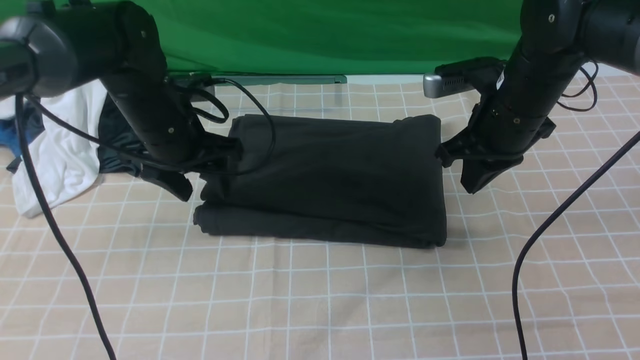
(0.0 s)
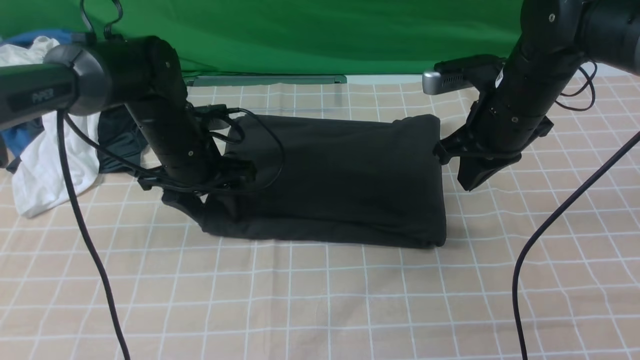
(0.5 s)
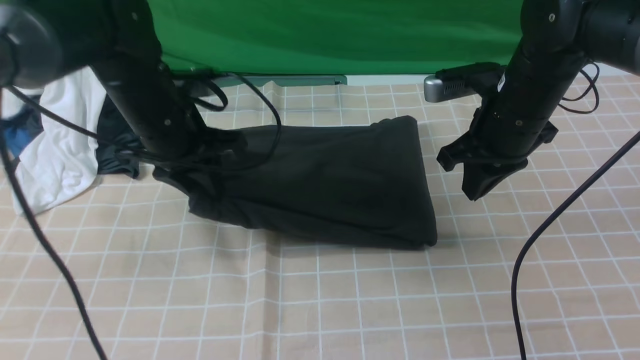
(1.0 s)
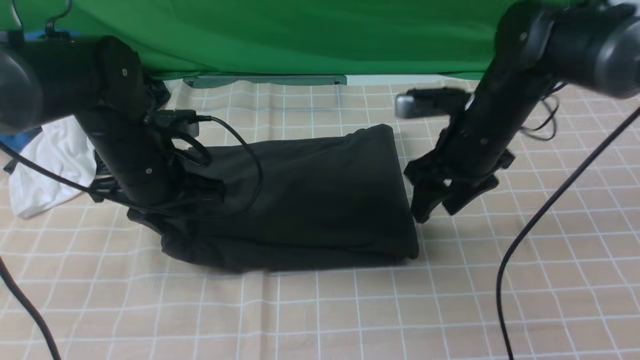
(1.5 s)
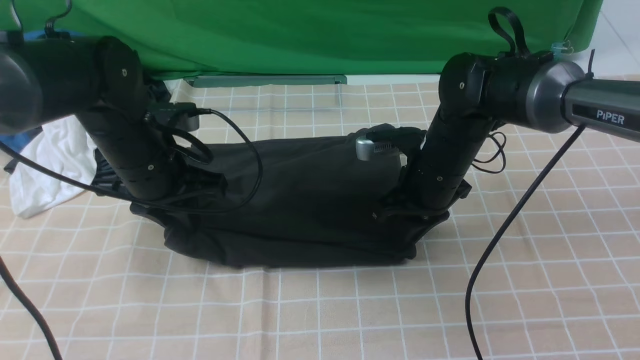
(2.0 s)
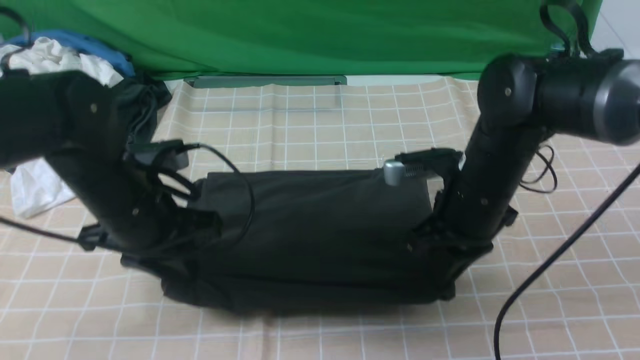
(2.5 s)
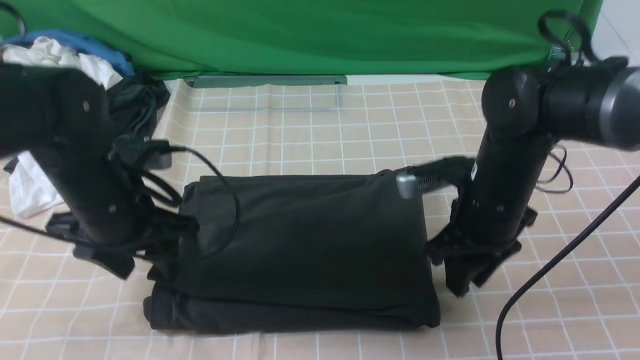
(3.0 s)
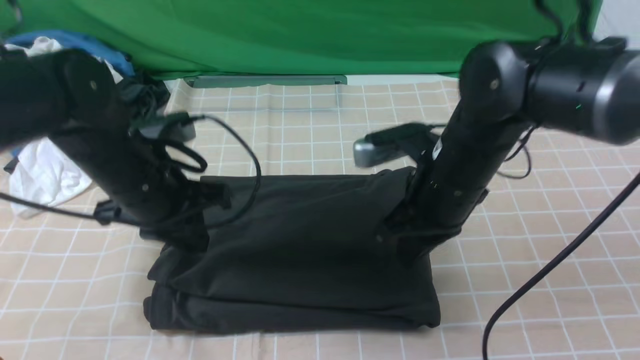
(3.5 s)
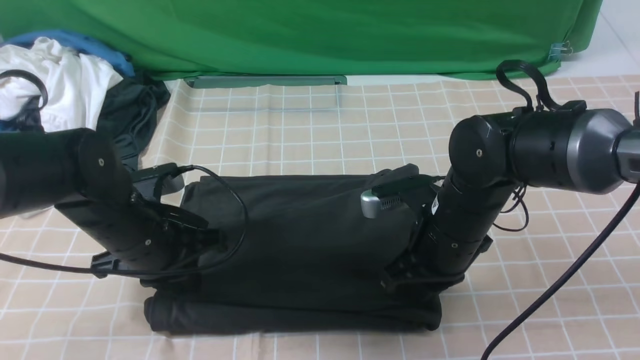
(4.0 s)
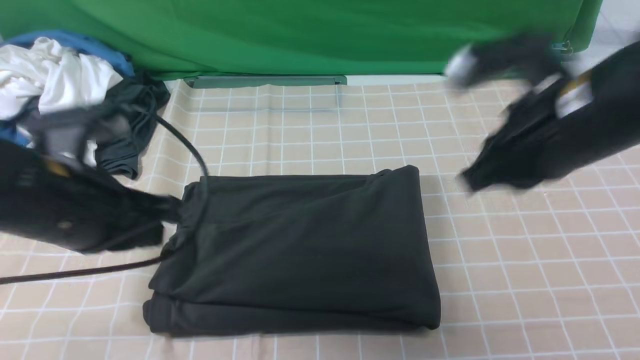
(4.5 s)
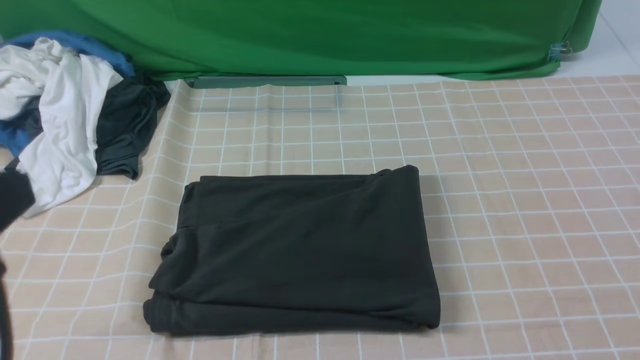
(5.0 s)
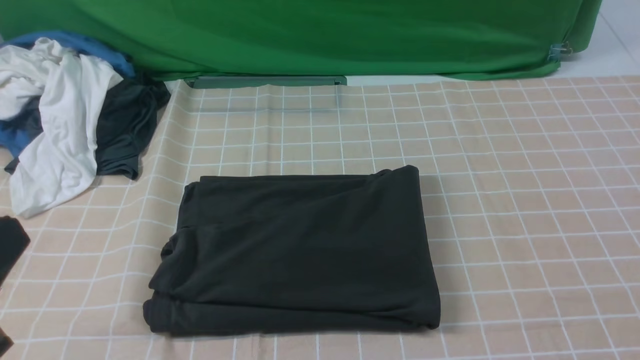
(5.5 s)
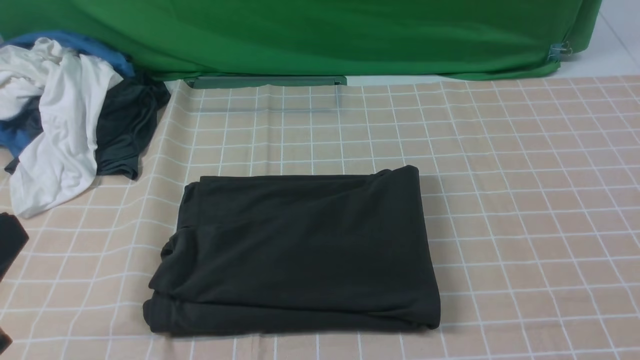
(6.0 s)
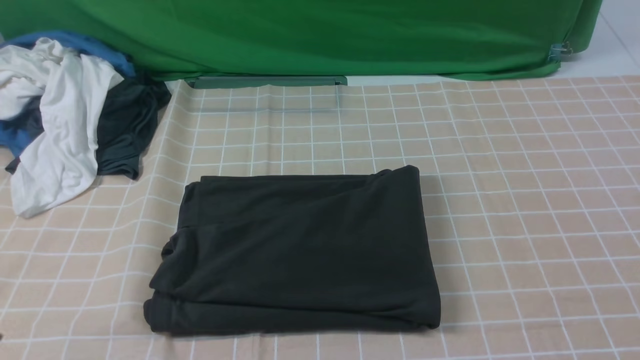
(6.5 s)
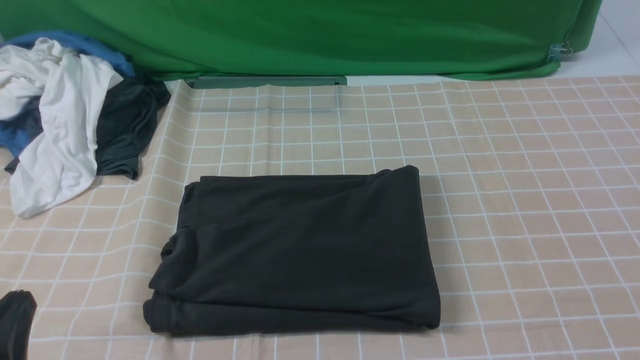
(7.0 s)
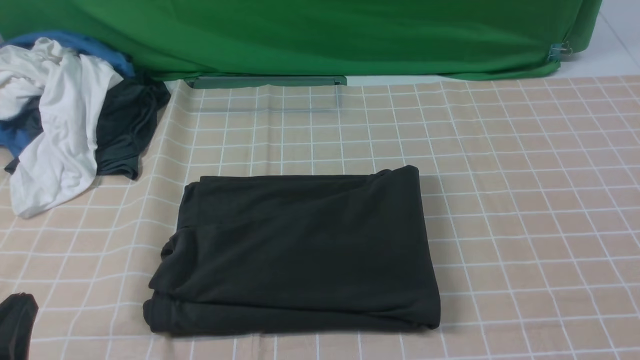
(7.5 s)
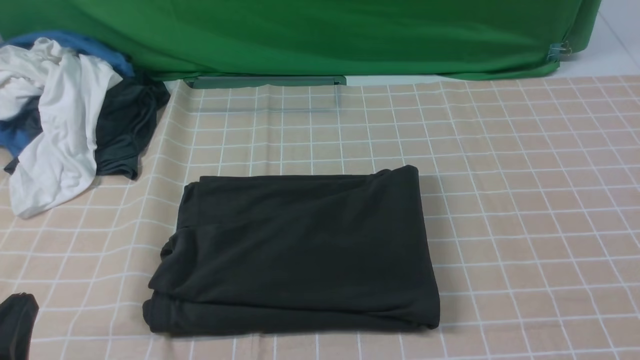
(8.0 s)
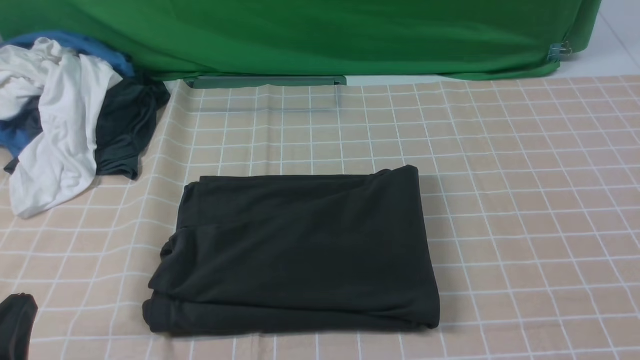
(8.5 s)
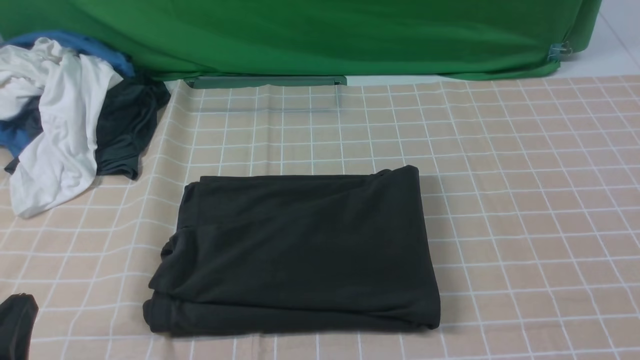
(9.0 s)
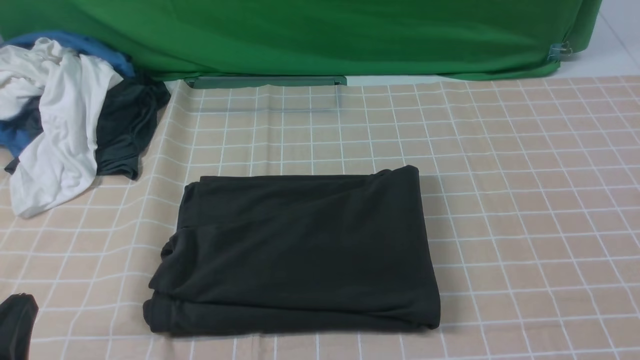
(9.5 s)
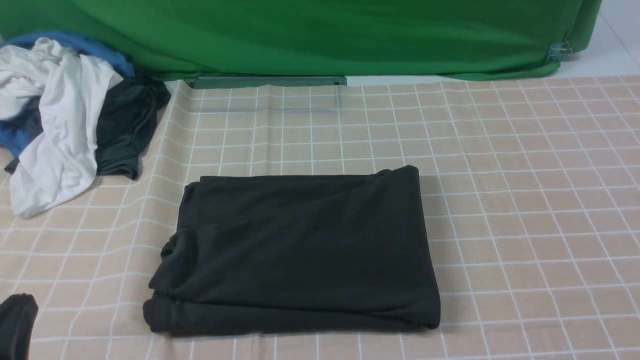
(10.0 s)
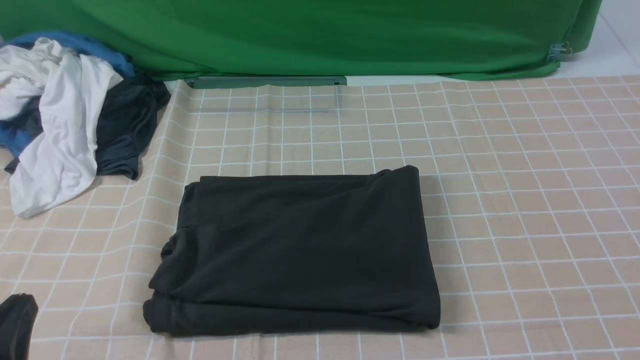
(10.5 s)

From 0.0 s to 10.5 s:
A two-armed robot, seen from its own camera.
From 0.0 s to 2.0 s: The right gripper travels downward and to the left by approximately 10 cm, and opens, while the left gripper is displaced backward by approximately 5 cm, and closes up.
From 2.0 s to 4.0 s: Both grippers move backward, about 5 cm. The left gripper opens, then closes again. Meanwhile the right gripper closes its fingers.
From 4.0 s to 6.5 s: The left gripper moves backward and upward, some 25 cm. Meanwhile the right gripper is displaced backward, upward and to the right by approximately 35 cm.
From 6.5 s to 8.5 s: The left gripper shifts about 10 cm downward.

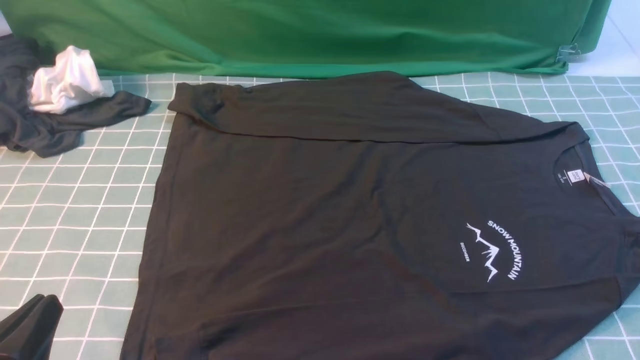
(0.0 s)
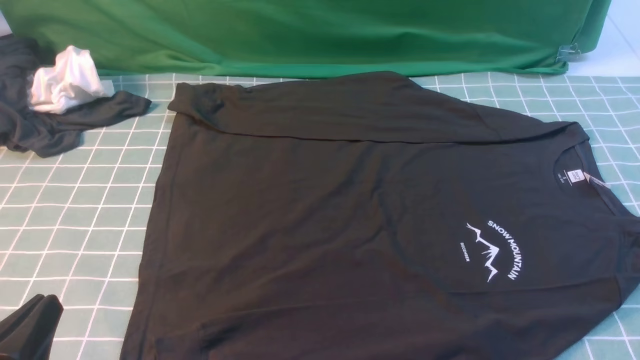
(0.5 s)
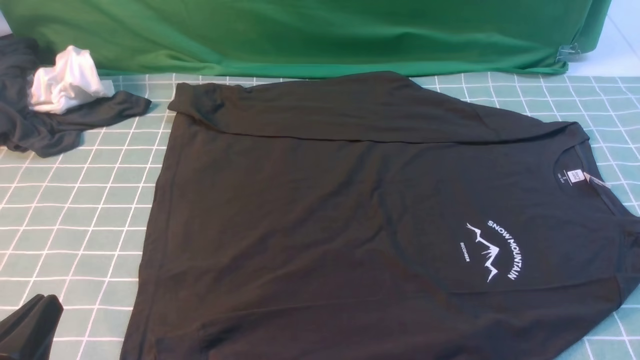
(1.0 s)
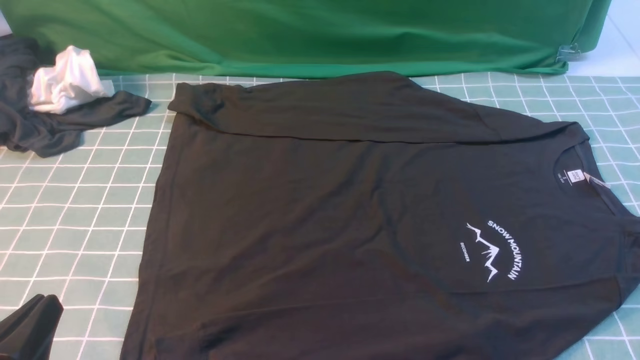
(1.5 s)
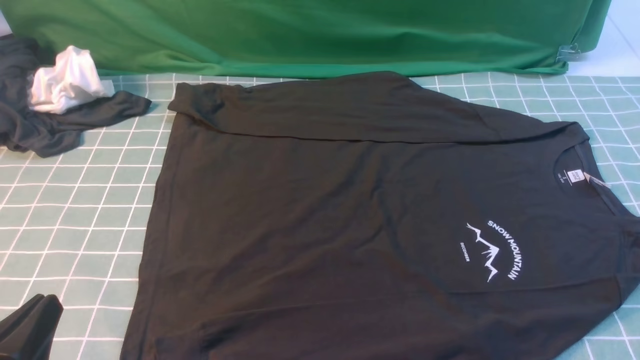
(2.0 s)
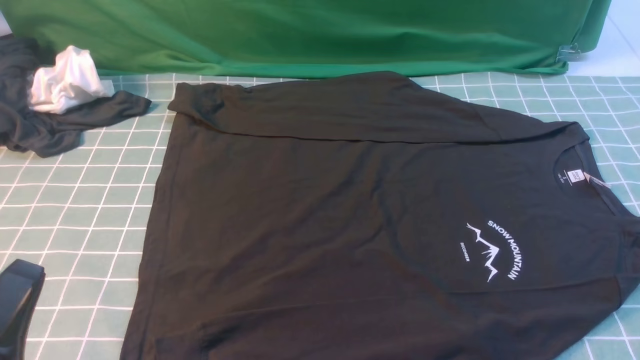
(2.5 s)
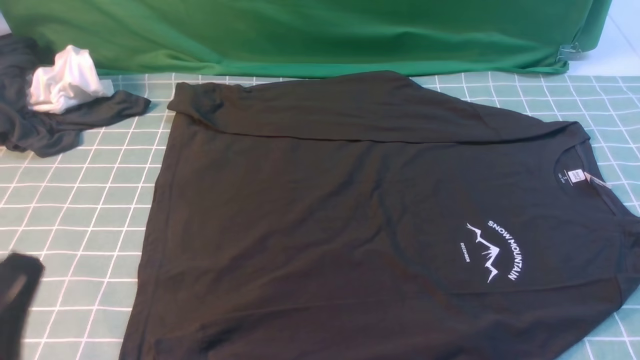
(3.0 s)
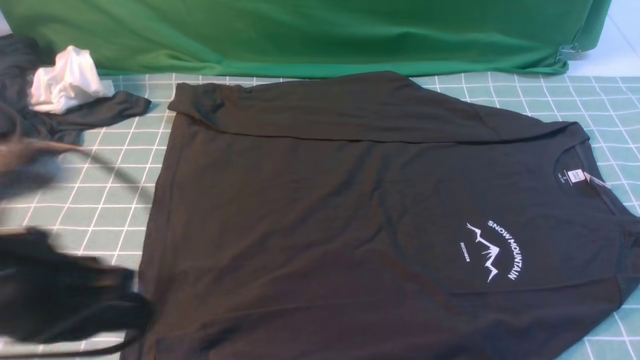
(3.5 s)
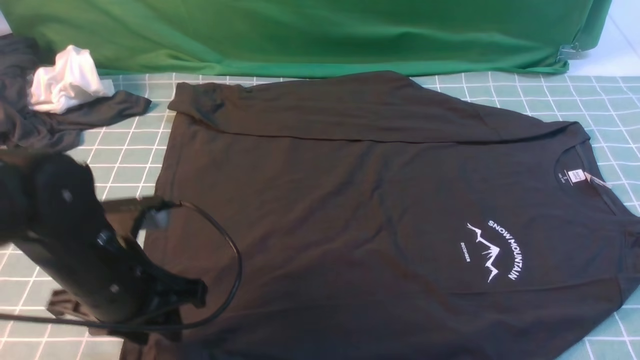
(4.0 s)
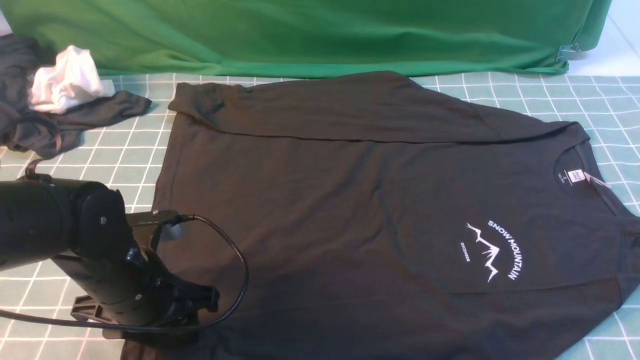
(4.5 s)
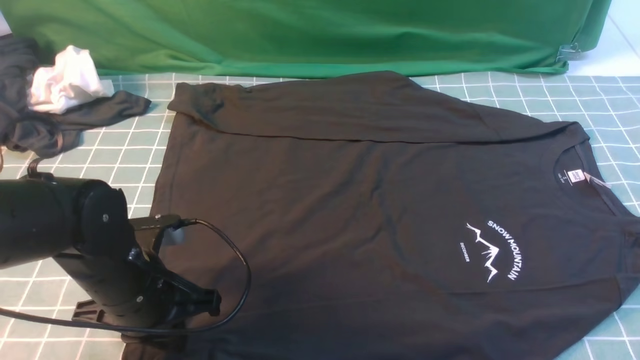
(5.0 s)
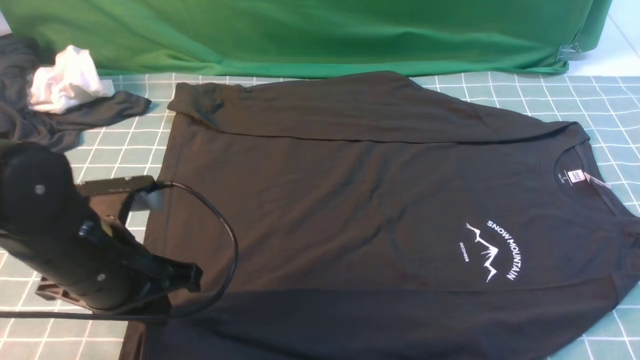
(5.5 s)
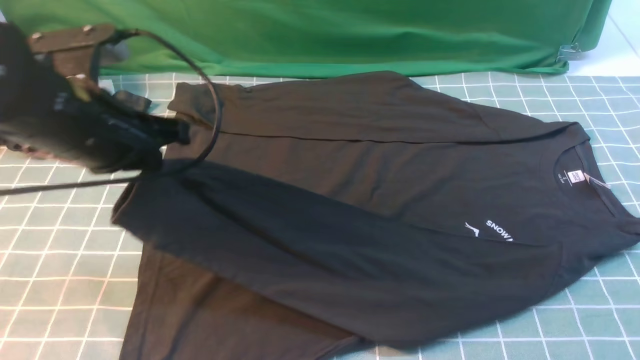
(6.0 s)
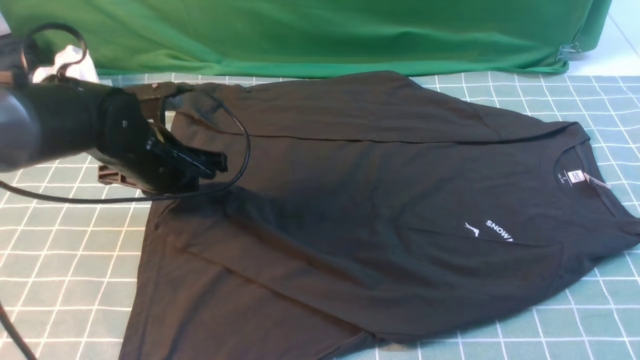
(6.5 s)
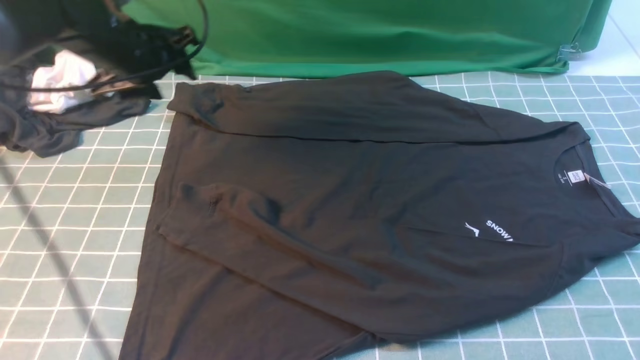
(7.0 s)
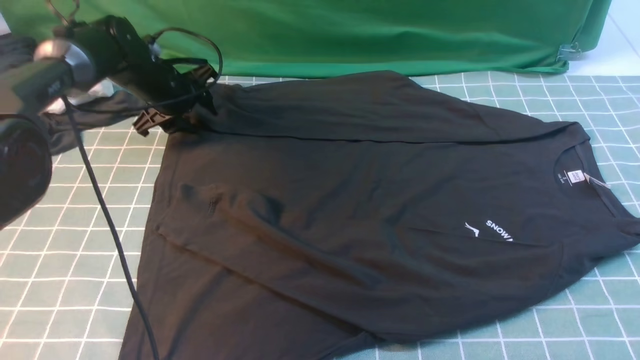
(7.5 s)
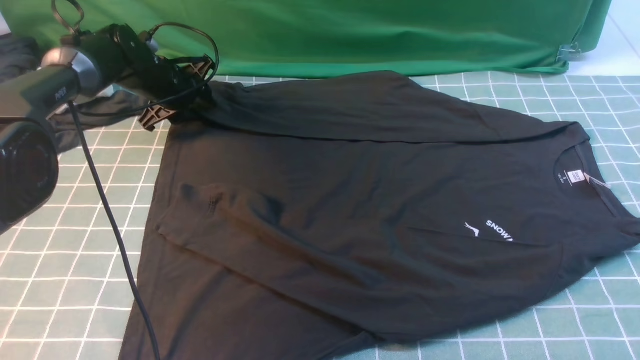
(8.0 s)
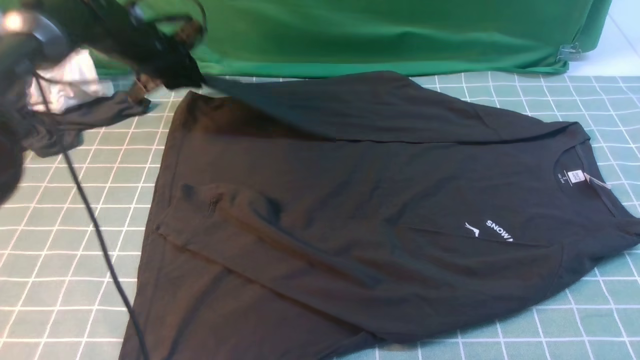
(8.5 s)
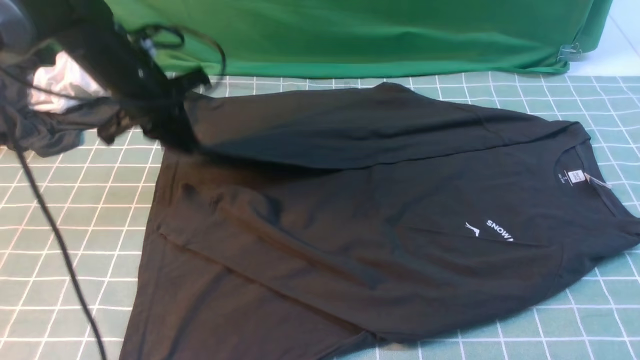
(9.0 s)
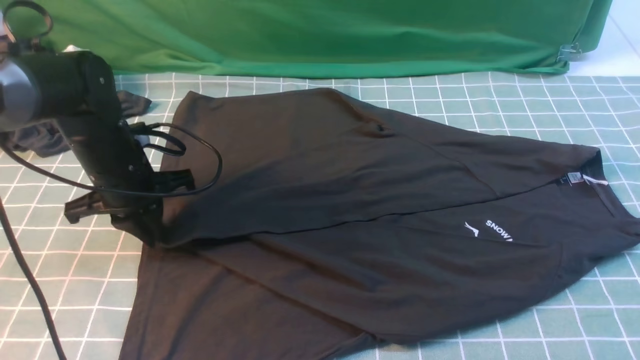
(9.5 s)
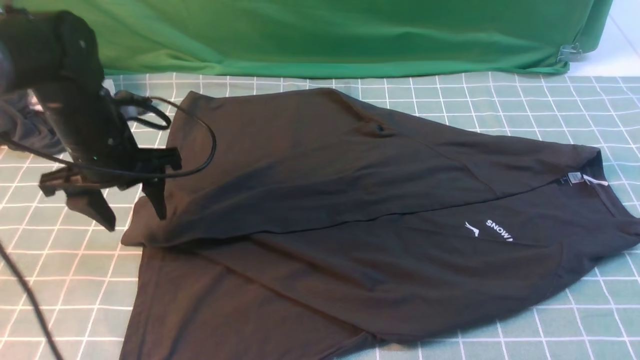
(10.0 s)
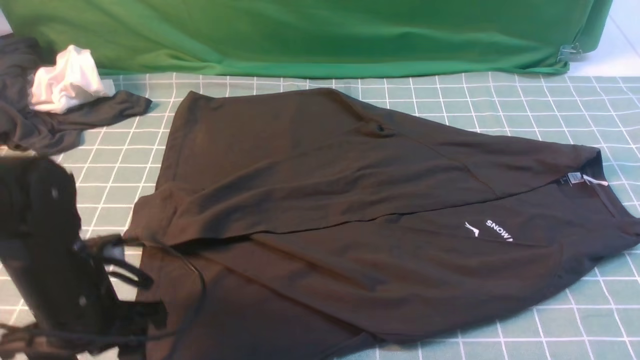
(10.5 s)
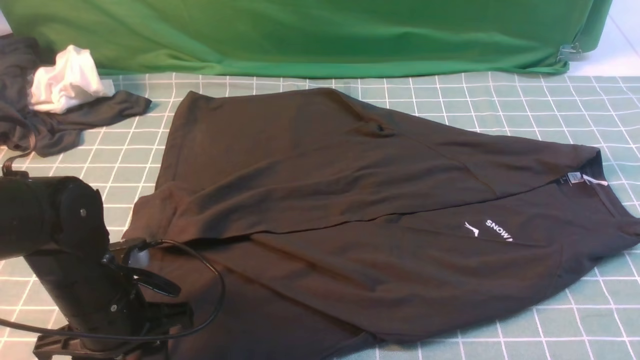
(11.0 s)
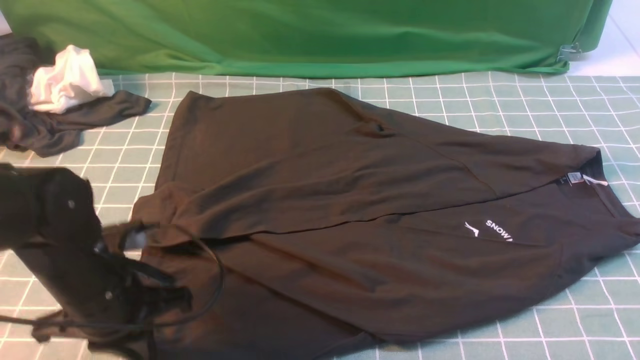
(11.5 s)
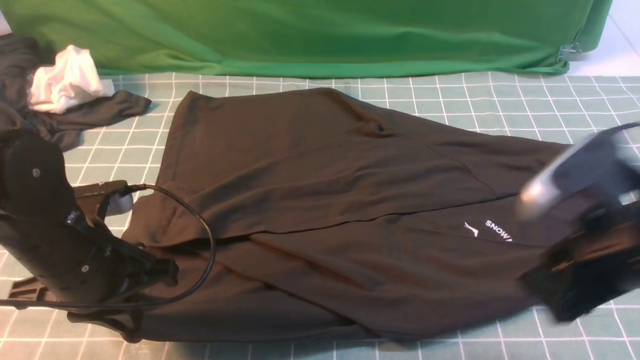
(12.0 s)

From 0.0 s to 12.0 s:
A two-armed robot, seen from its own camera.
Step, from 0.0 s to 5.5 s: use the left arm to clamp the cuff closest to it.
Step, from 6.0 s to 6.5 s: use the left arm to drag and place the cuff at the centered position on the left edge of the fabric.
Step, from 7.0 s to 8.0 s: use the left arm to clamp the cuff farthest from it.
Step, from 8.5 s to 10.0 s: use the left arm to drag and drop the cuff onto the cuff closest to the left arm.
From 0.0 s to 2.0 s: Both grippers stay put.
From 2.0 s to 4.0 s: The right gripper goes some 20 cm upward and forward, and closes, while the left gripper moves forward, about 15 cm, and opens its fingers.
From 4.0 s to 6.0 s: The left gripper heads upward and forward, covering about 10 cm, and closes up.
From 6.0 s to 8.0 s: The left gripper travels forward and downward by about 25 cm, and opens up.
From 8.0 s to 10.0 s: The left gripper is displaced backward by some 20 cm, and opens its fingers.
From 10.0 s to 12.0 s: The right gripper moves to the left and downward, roughly 10 cm, and opens up; the left gripper moves backward, some 10 cm, and closes its fingers.
